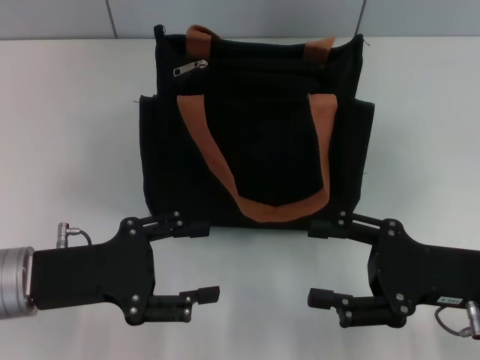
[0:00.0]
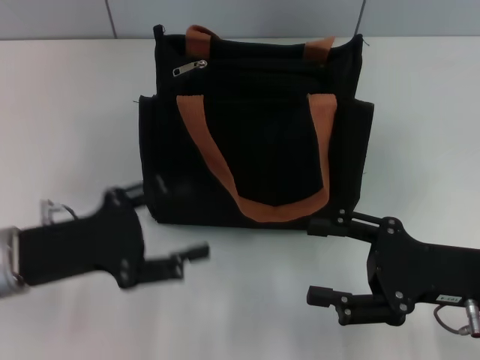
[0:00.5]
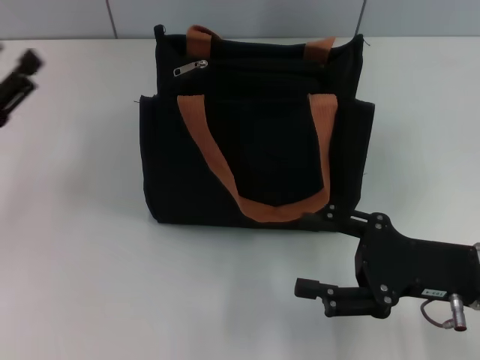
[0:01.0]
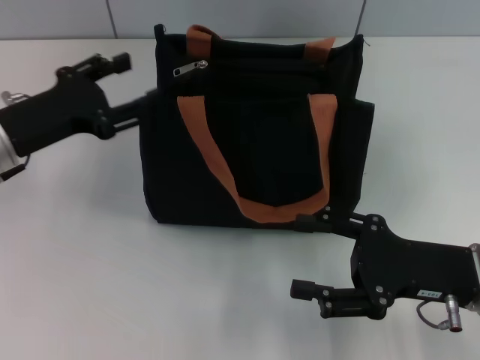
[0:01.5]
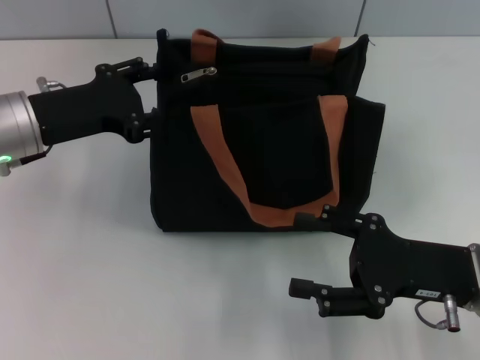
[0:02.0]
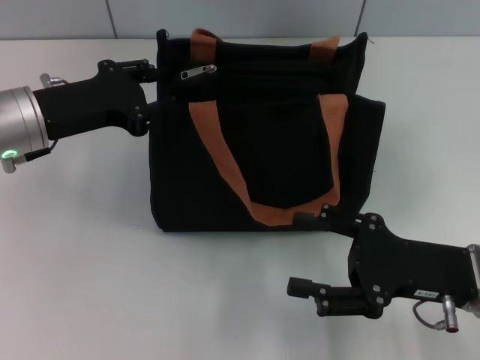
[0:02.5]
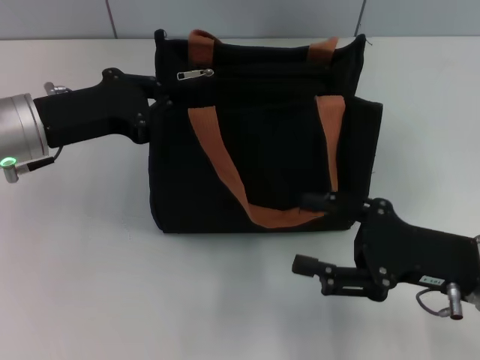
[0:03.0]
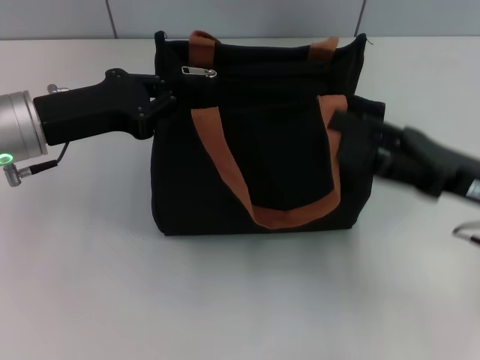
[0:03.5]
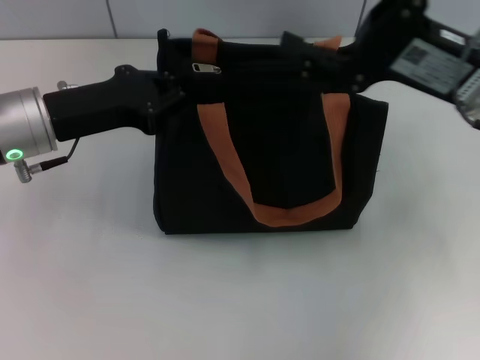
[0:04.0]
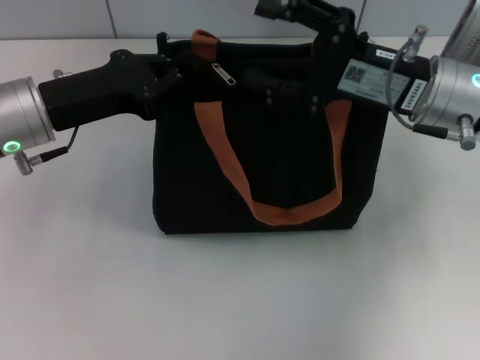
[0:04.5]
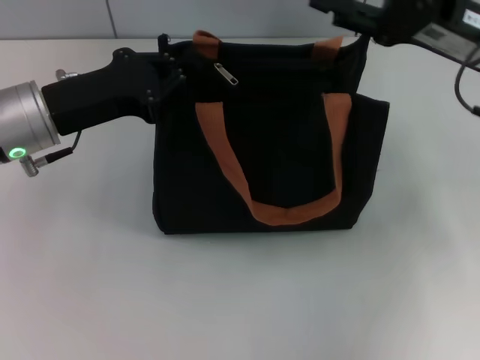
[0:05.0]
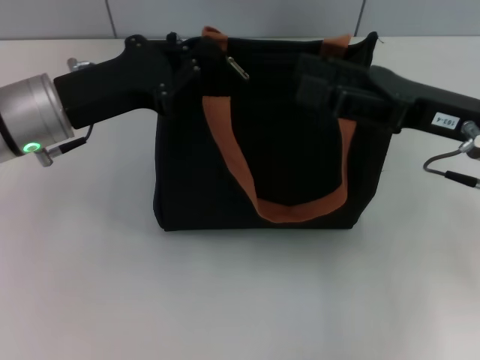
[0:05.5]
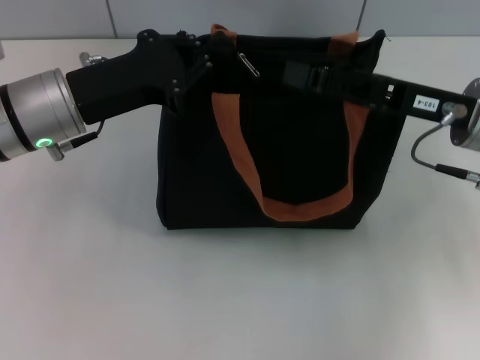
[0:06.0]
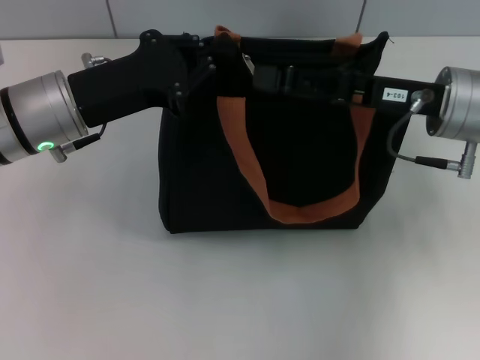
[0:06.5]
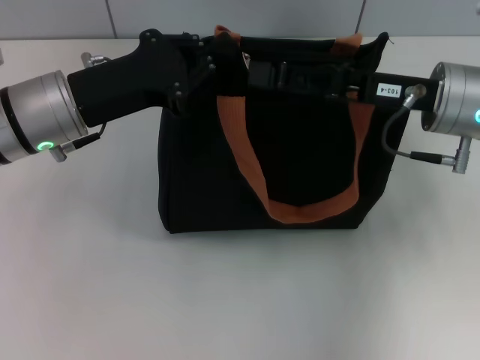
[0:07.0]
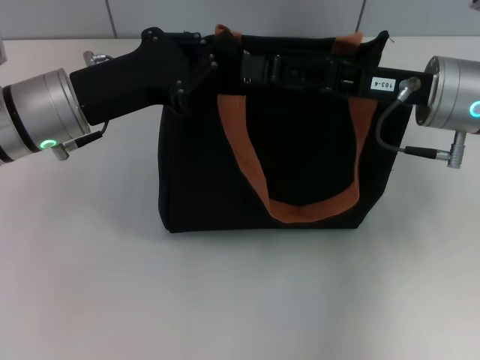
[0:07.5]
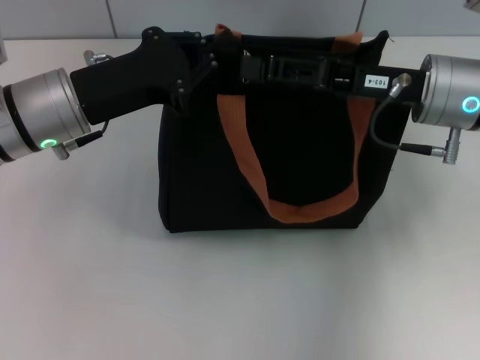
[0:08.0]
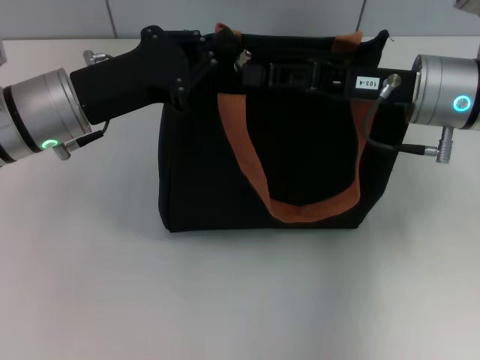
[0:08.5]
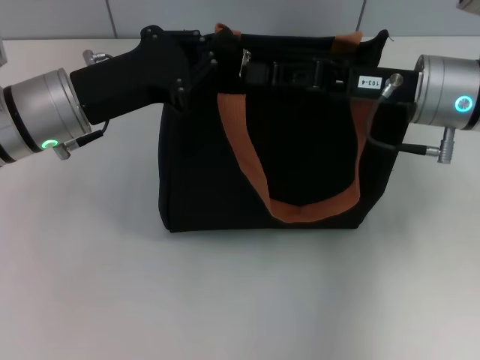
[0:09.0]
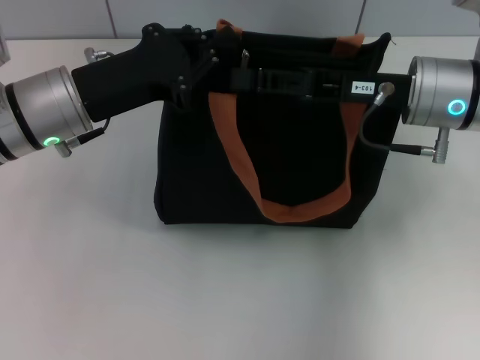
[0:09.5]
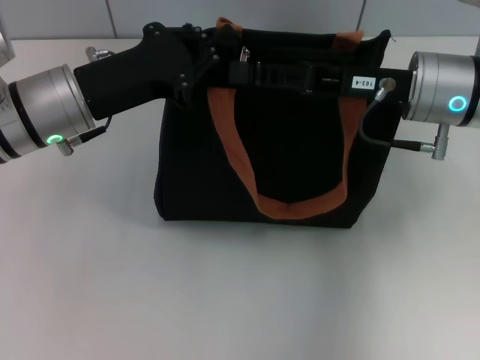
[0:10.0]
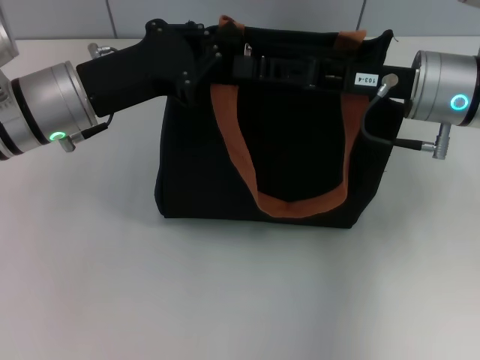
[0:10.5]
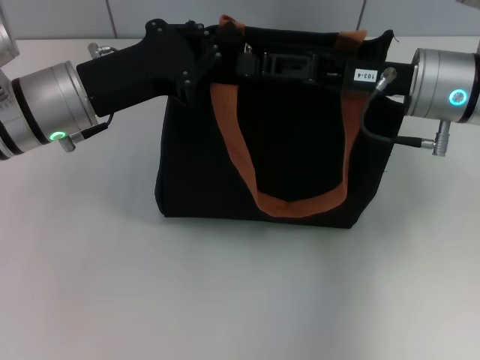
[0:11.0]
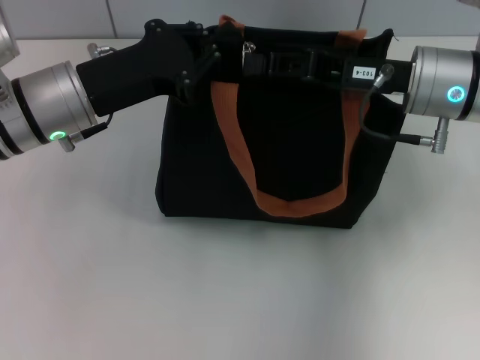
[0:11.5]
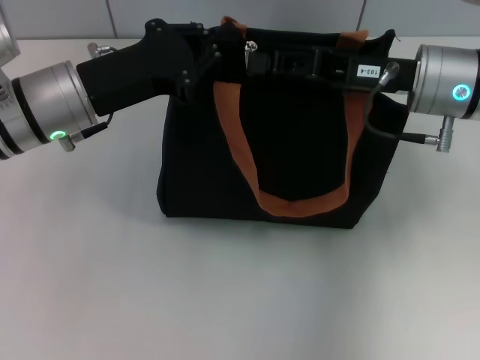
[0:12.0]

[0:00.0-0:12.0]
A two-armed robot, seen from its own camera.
0:00.0 to 0:02.0: The left gripper heads forward and upward, covering some 10 cm.
0:02.0 to 0:04.0: The left gripper closes its fingers, while the right gripper travels forward and upward by about 15 cm.
0:06.0 to 0:08.0: There are only small adjustments of the grippers.
0:08.0 to 0:10.0: The right gripper closes, then opens again.
0:10.0 to 0:12.0: The right gripper closes its fingers.

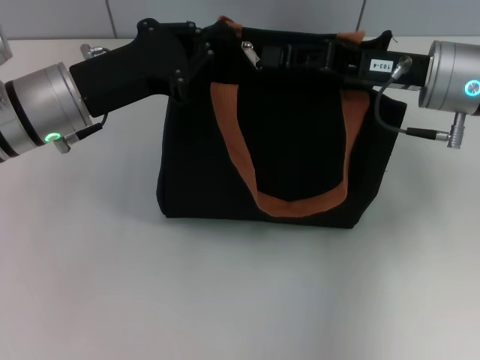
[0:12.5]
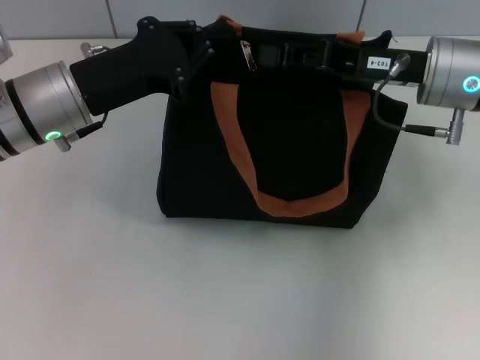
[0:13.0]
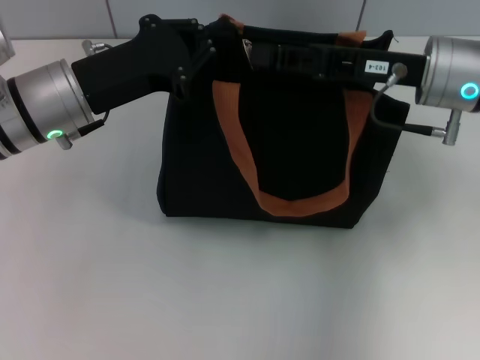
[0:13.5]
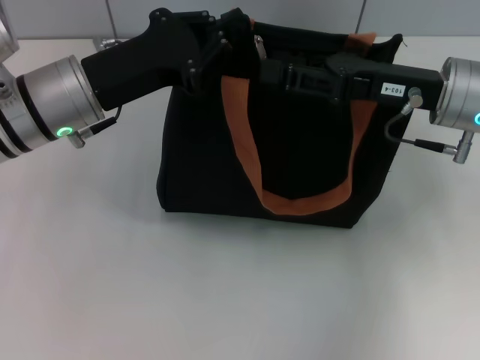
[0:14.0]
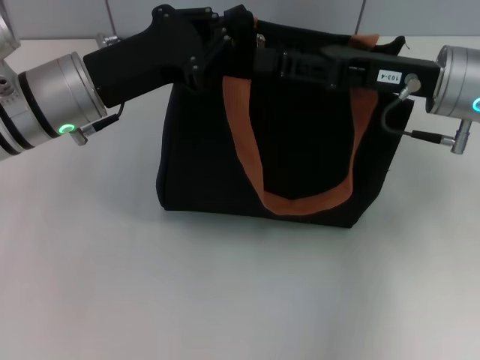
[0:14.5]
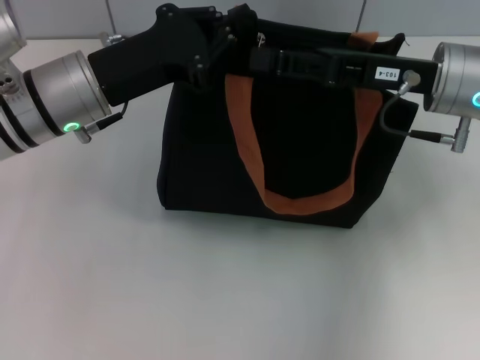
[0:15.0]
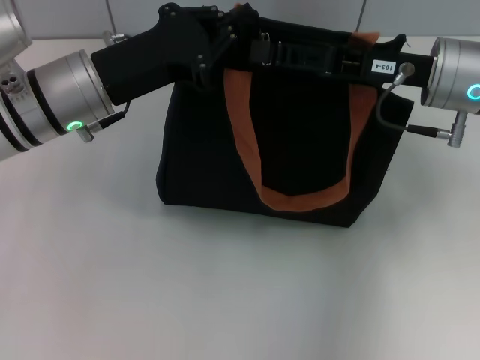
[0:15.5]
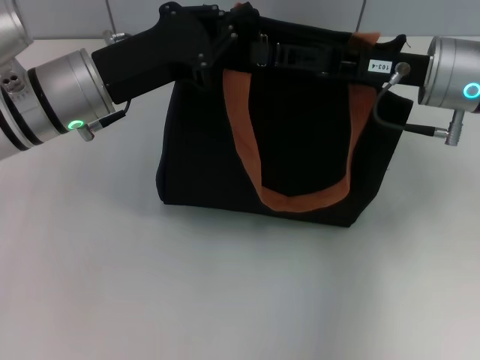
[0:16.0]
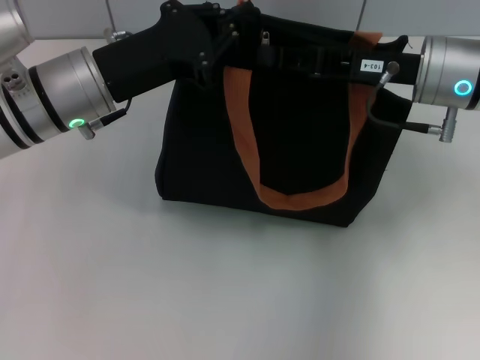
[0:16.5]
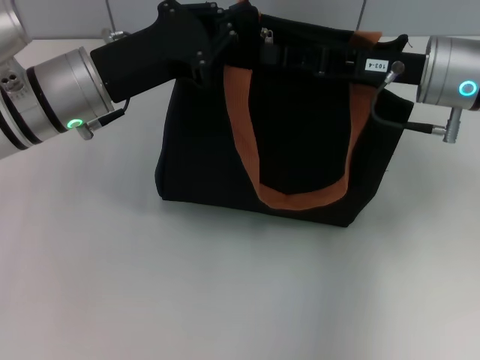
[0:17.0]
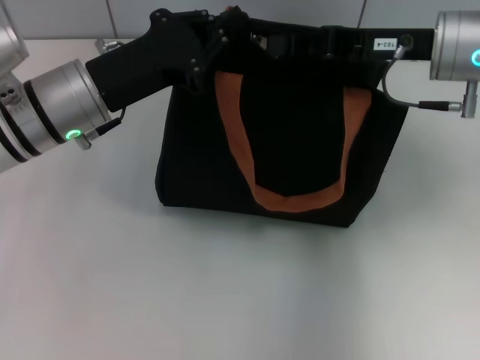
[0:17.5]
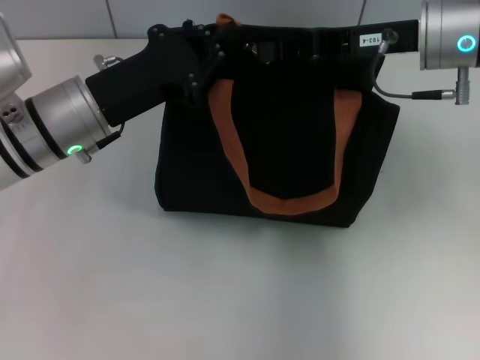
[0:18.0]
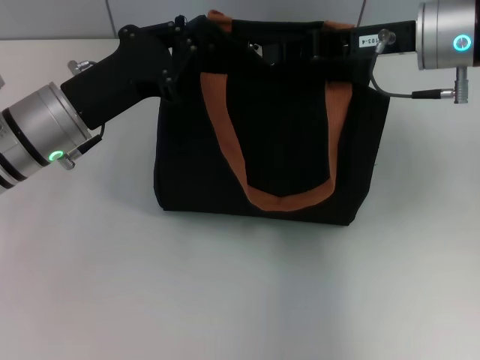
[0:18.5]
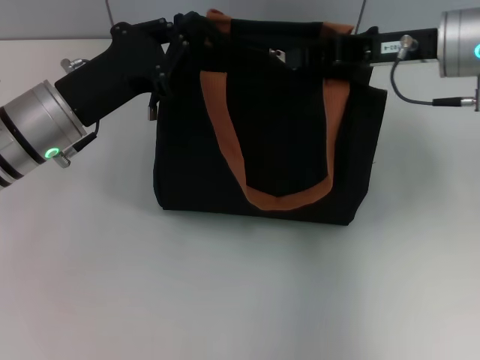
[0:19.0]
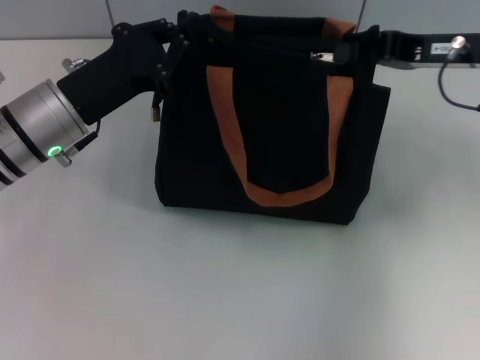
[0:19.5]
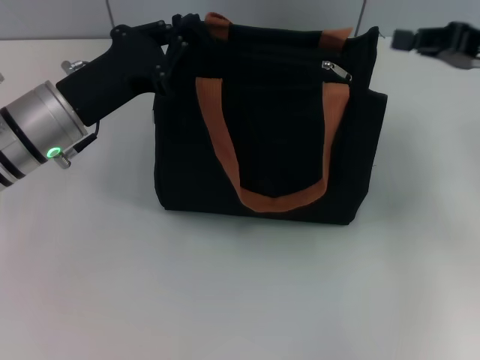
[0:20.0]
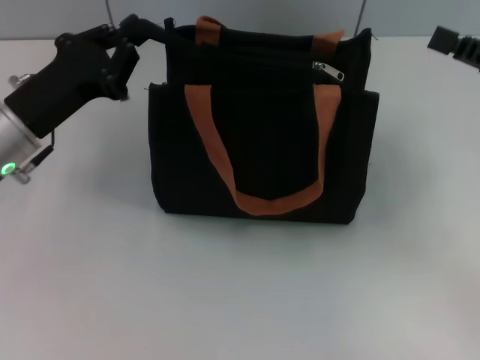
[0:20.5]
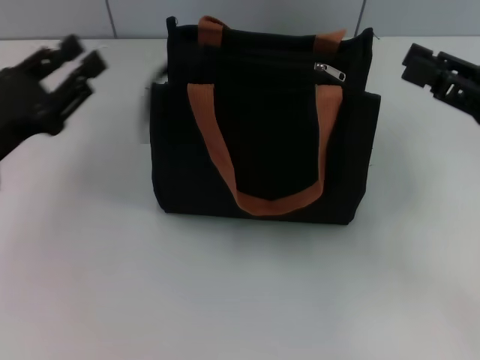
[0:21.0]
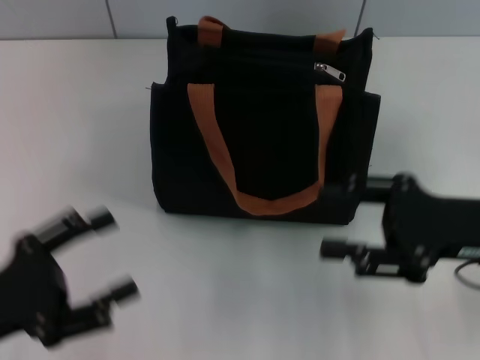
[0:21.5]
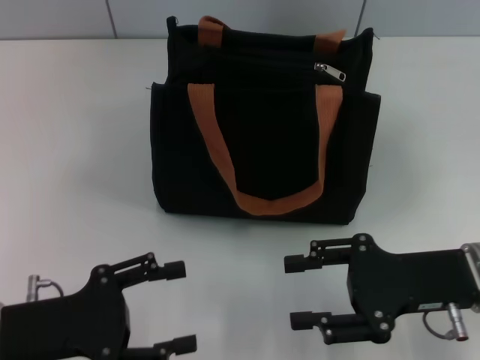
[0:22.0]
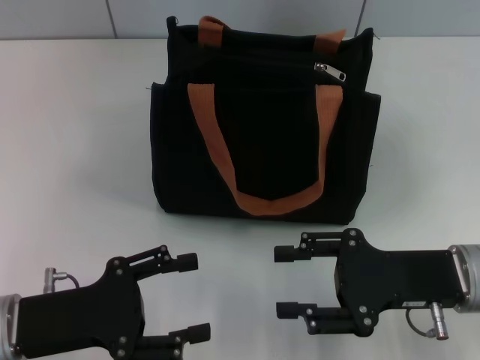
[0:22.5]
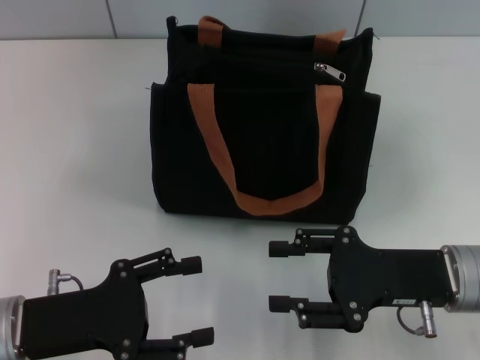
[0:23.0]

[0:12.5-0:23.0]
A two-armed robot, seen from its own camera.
Step, 0:12.5 to 0:19.5: Pull up the zipper with your right hand.
Step, 0:20.0 to 0:20.5: Grab the zipper with your left hand.
0:12.5 to 0:14.5: The right gripper opens up.
0:14.5 to 0:16.5: The right gripper closes.
0:19.0 to 0:21.0: The right gripper heads backward and to the right, covering approximately 15 cm, and opens. The left gripper moves to the left and backward, some 10 cm.
0:21.0 to 0:23.0: The left gripper heads backward, covering some 10 cm, and opens up. Meanwhile the right gripper travels to the left and downward by approximately 10 cm.

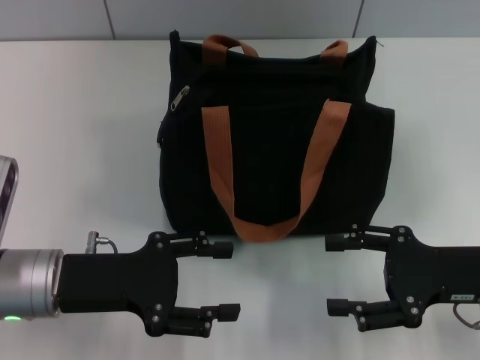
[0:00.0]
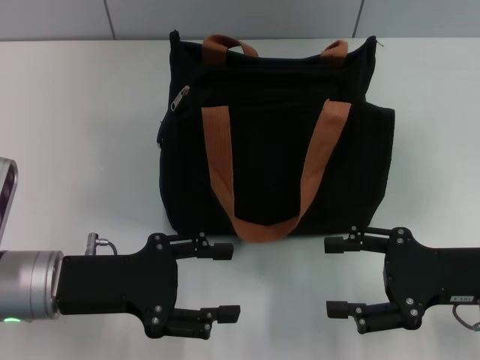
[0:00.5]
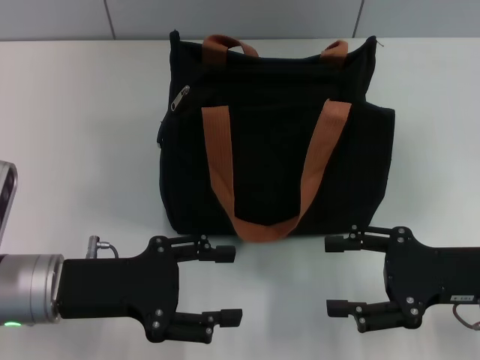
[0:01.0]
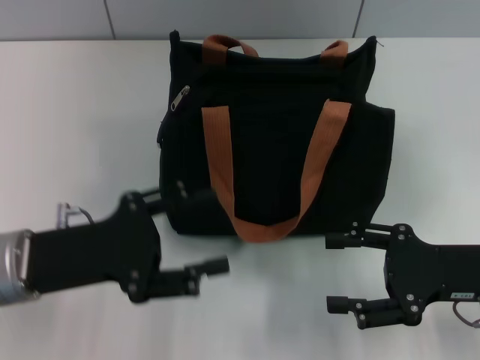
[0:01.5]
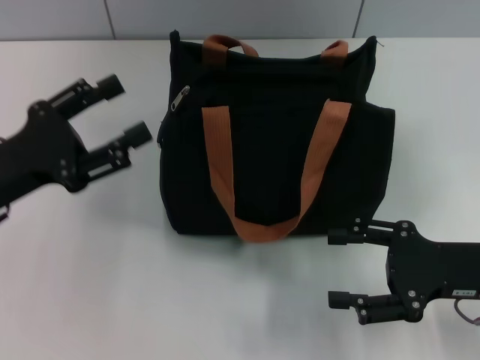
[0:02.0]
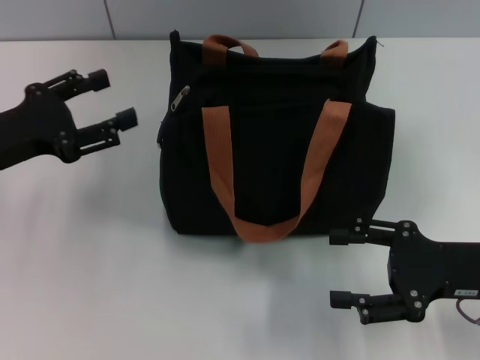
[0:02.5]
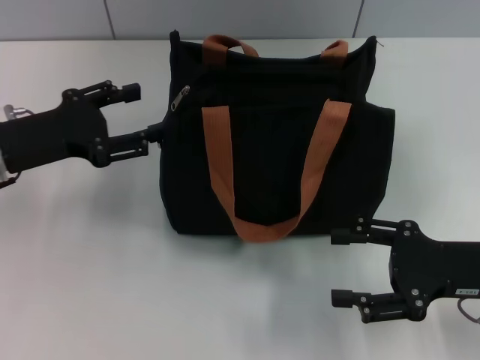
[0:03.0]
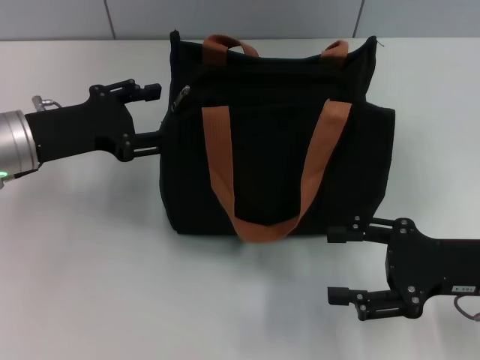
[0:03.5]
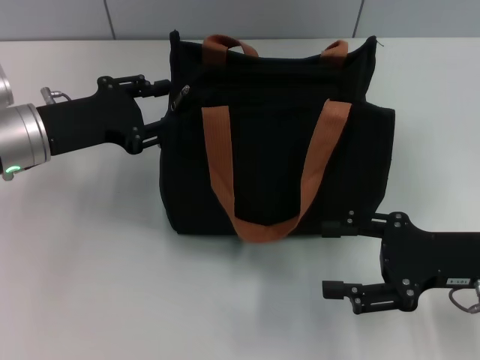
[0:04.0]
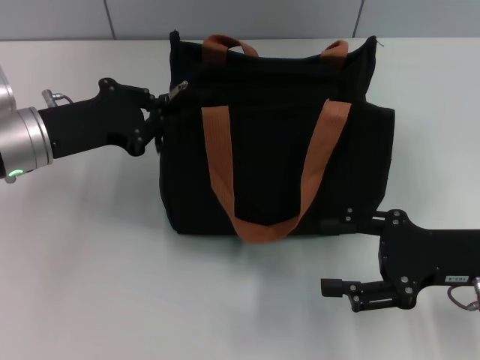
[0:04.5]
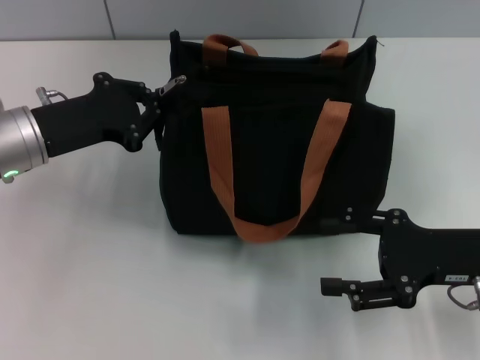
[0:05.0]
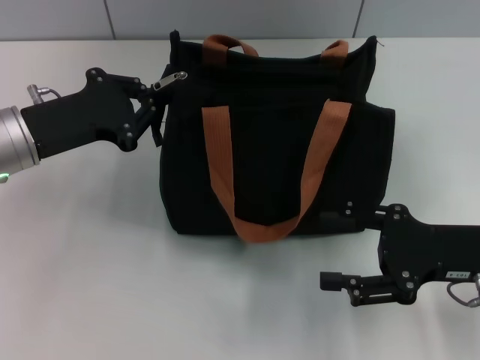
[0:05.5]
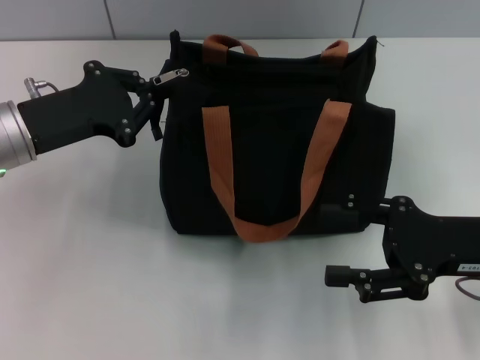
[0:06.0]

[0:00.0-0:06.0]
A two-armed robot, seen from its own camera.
0:00.0 to 0:02.0: The left gripper heads to the left, covering approximately 5 cm.
0:02.0 to 0:04.0: The left gripper heads forward, covering some 10 cm.
0:04.0 to 0:06.0: The left gripper closes up.
